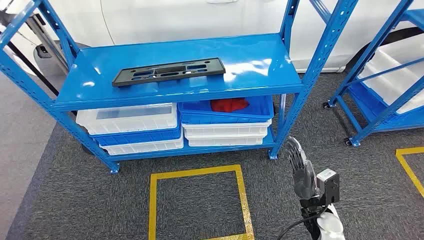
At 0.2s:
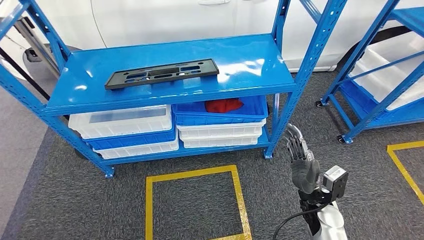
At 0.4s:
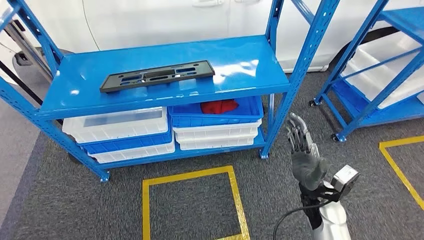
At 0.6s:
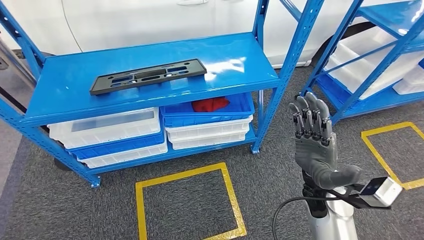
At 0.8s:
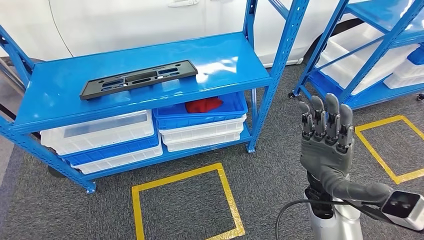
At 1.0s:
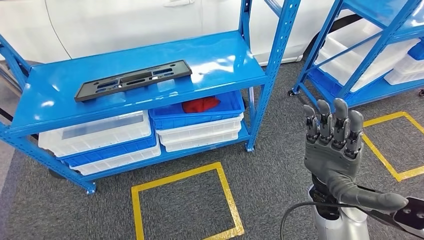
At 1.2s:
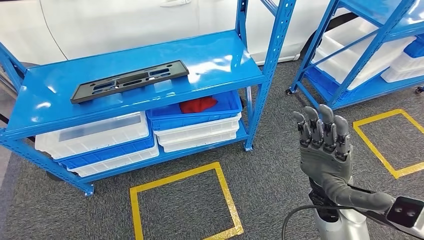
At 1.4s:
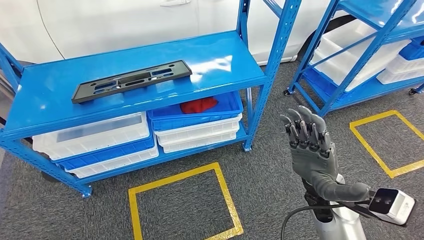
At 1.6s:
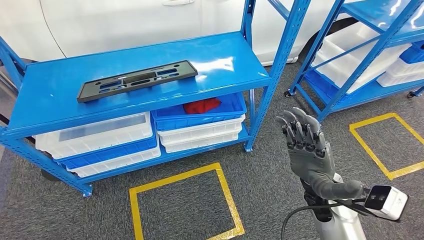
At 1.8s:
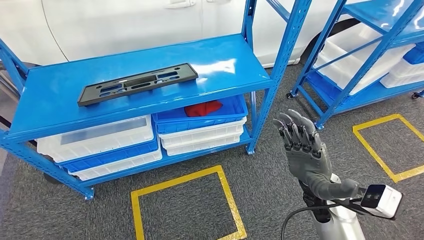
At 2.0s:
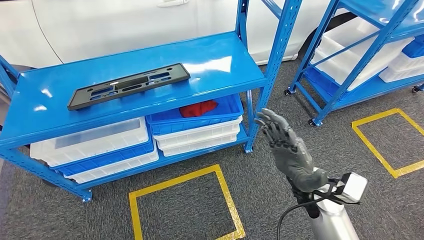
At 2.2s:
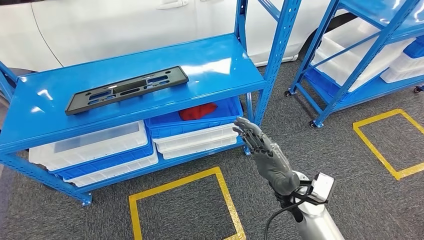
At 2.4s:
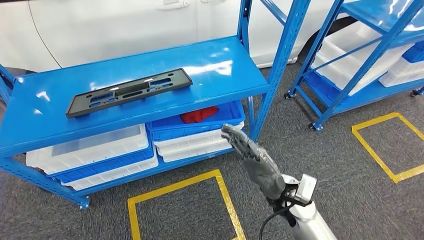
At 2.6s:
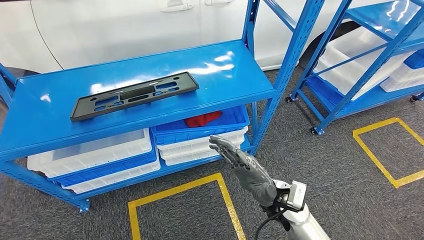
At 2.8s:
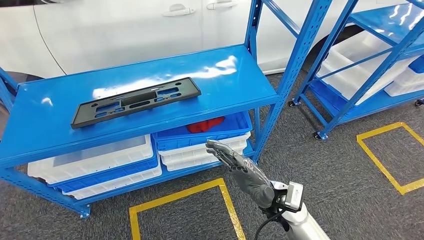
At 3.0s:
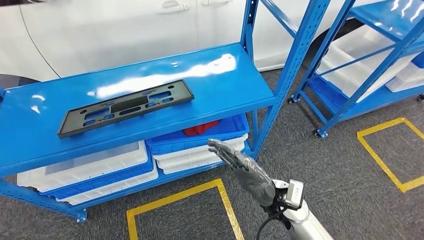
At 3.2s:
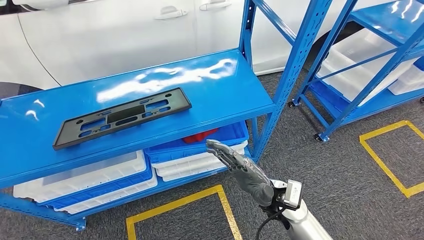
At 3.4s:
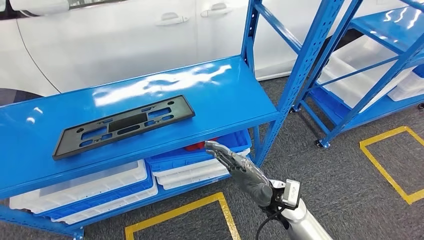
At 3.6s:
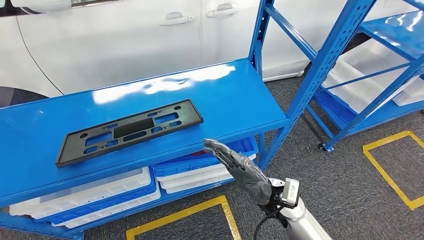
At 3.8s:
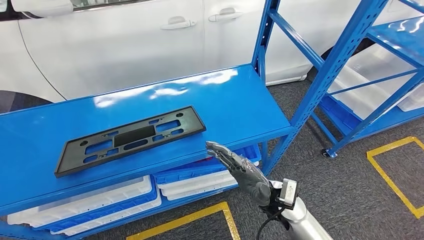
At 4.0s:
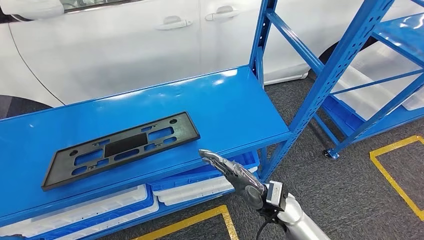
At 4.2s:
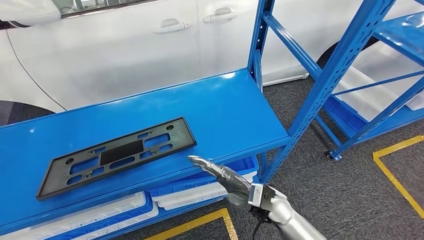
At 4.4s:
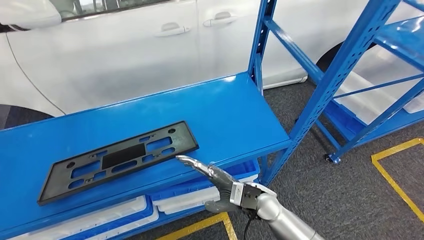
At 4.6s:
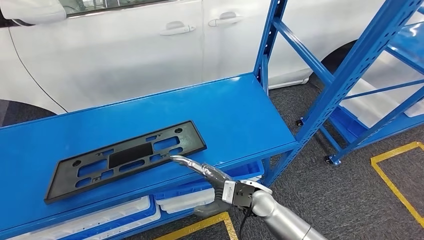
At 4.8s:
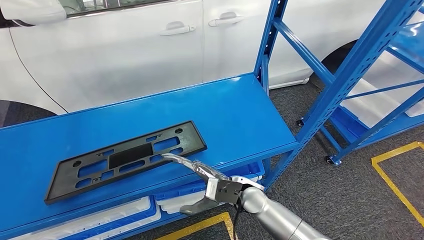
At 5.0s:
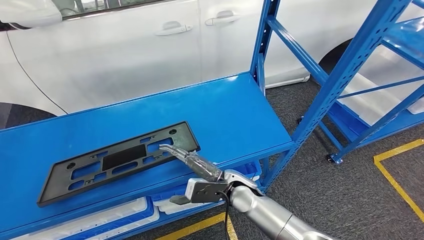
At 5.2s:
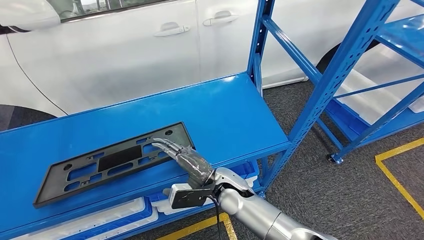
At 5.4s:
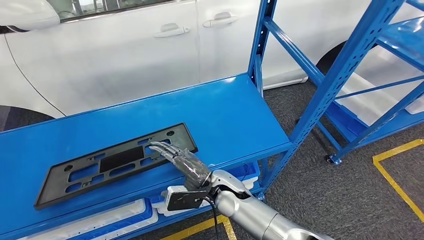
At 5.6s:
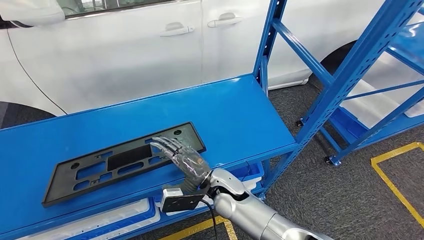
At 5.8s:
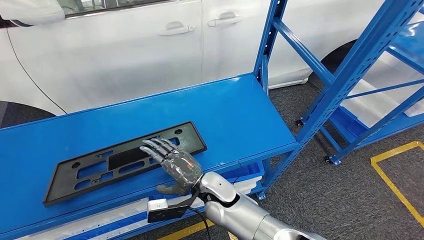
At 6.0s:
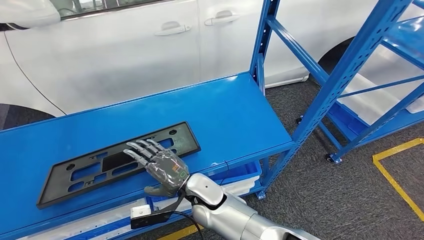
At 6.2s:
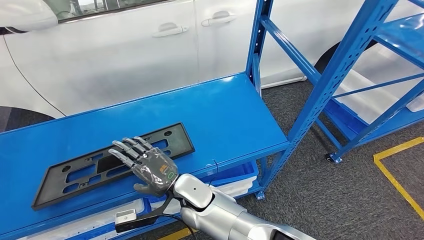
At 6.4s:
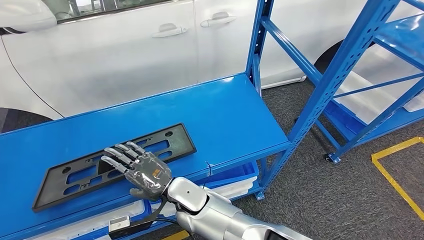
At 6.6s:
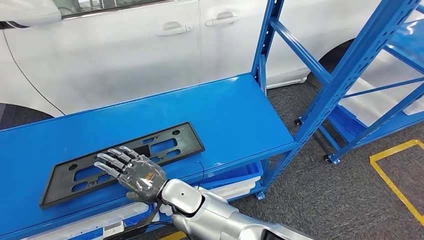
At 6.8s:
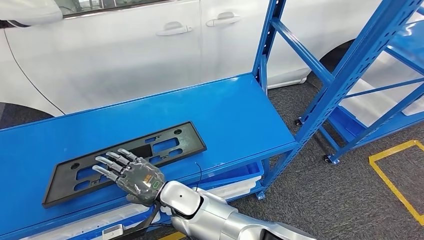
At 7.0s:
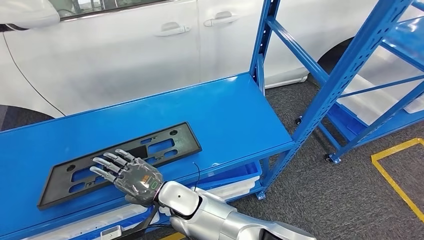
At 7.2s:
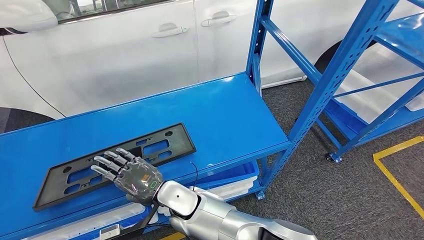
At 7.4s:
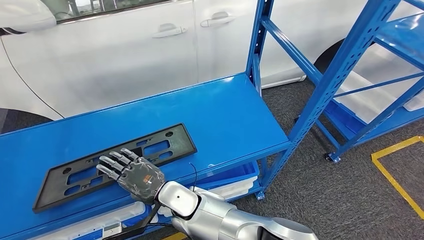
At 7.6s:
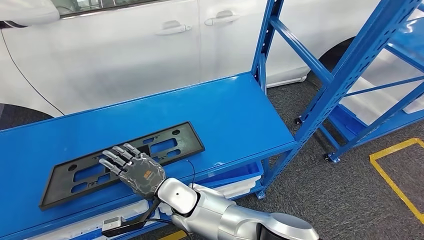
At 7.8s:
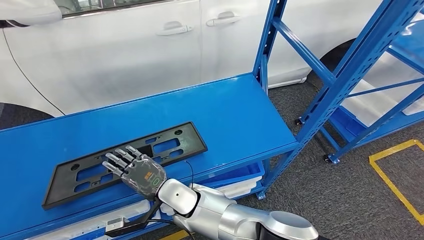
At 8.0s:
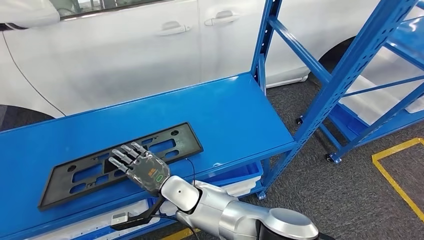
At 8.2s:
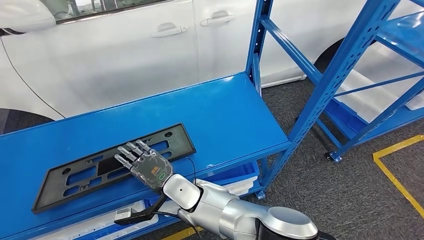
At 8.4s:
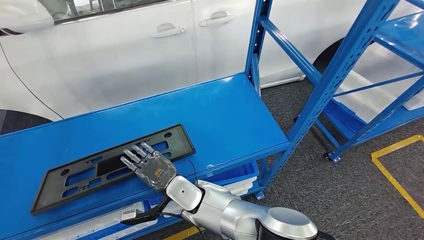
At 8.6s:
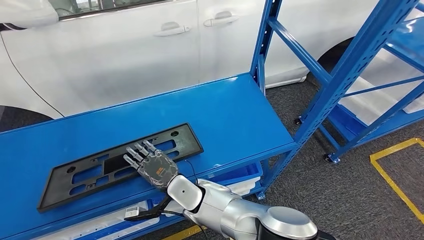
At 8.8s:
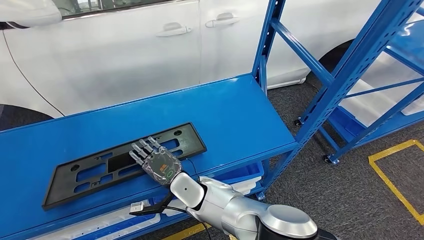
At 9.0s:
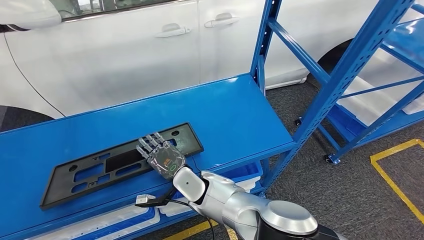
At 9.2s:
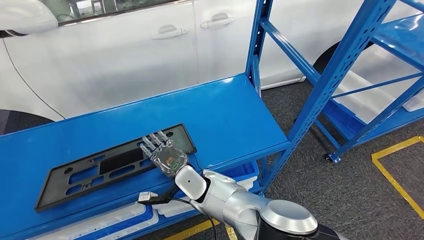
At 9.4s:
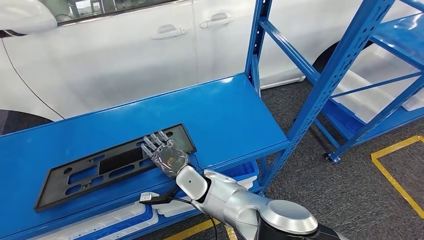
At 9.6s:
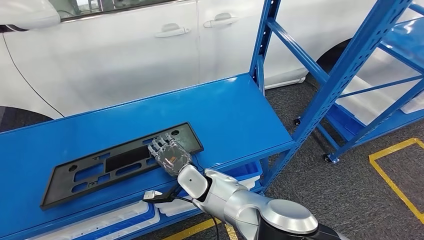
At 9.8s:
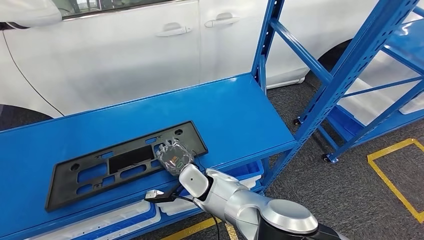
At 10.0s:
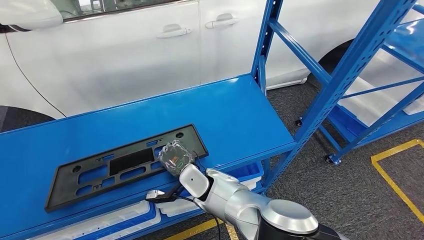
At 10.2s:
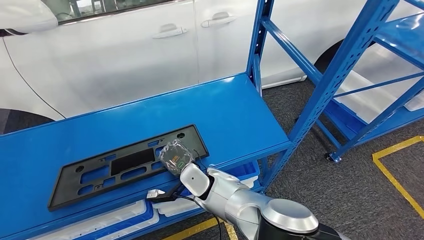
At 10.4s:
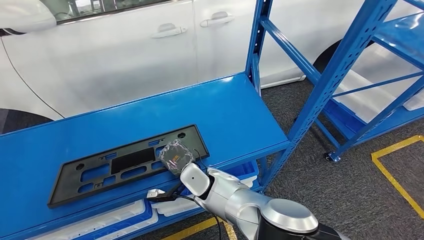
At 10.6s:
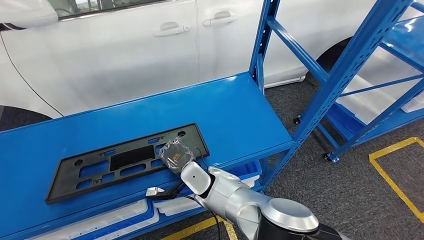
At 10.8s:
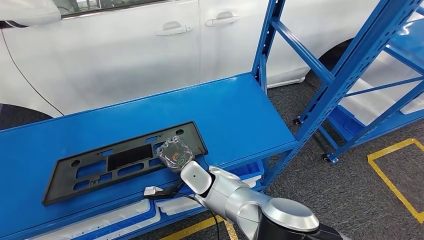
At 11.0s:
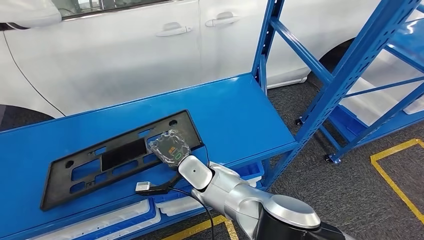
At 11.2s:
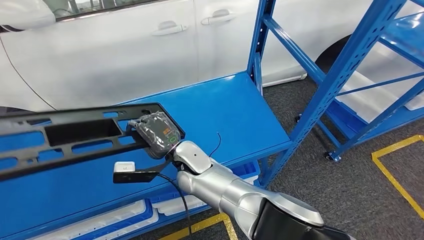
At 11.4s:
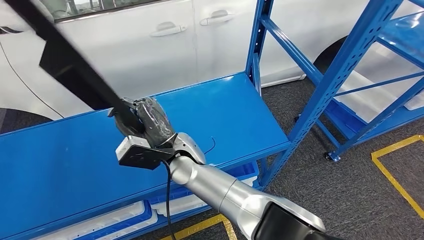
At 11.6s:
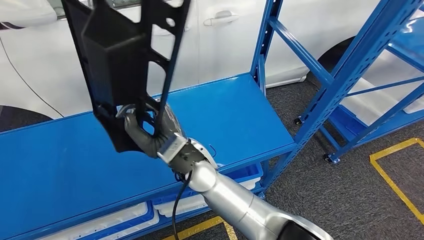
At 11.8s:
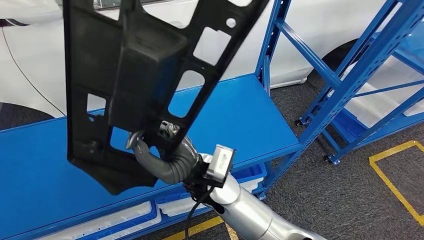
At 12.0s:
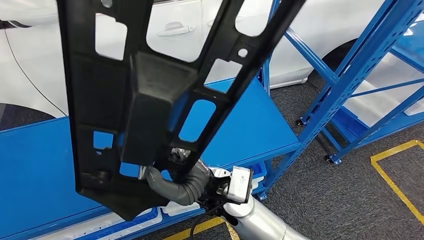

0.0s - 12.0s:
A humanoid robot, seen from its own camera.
4.4s - 6.0s: The right hand shifts about 15 cm to the left.
6.0s - 7.6s: The right hand travels to the left by approximately 5 cm.
7.6s - 9.0s: The right hand changes place by some 5 cm.
9.0s - 10.4s: There are only small adjustments of the hands.

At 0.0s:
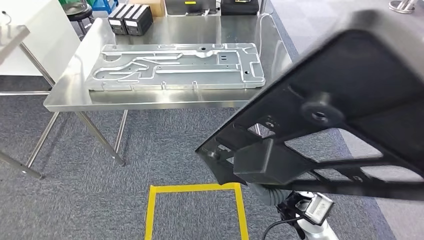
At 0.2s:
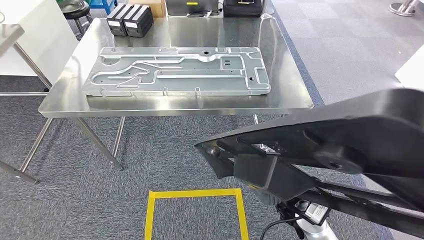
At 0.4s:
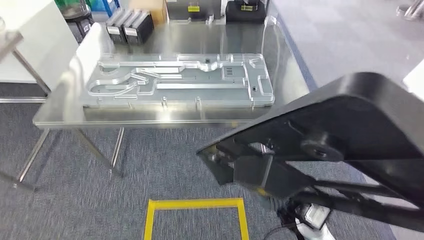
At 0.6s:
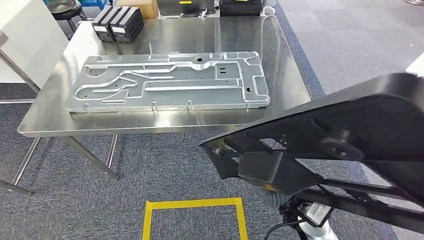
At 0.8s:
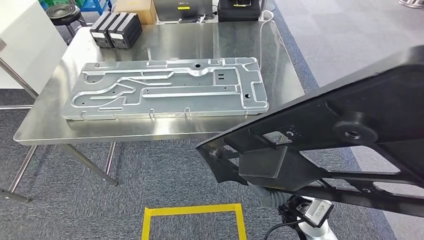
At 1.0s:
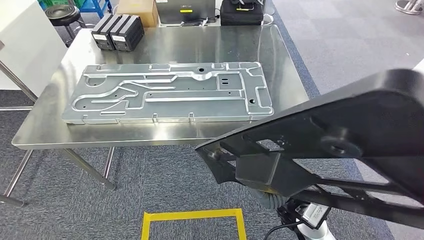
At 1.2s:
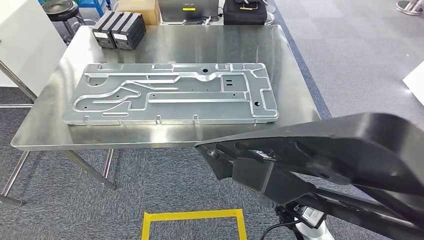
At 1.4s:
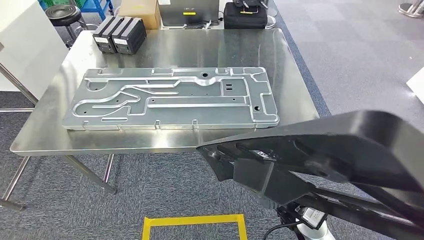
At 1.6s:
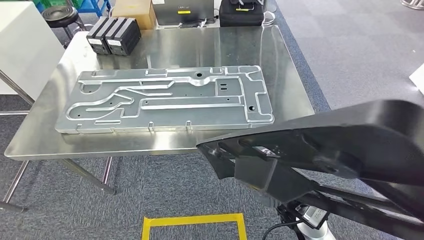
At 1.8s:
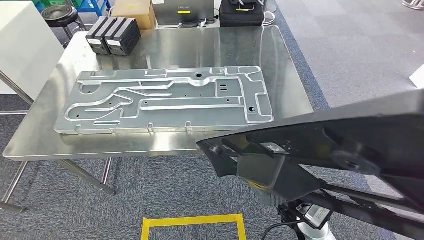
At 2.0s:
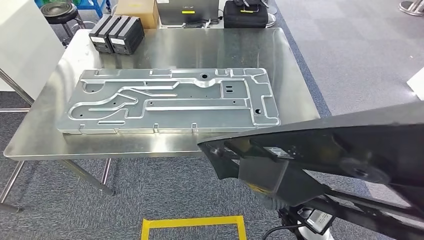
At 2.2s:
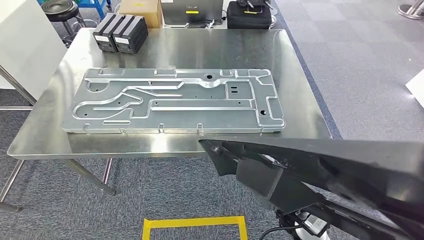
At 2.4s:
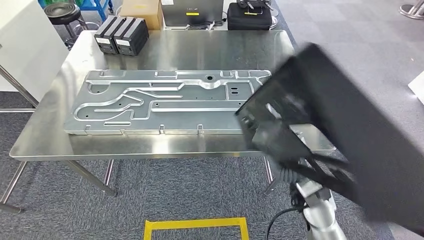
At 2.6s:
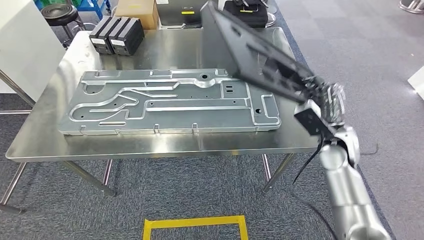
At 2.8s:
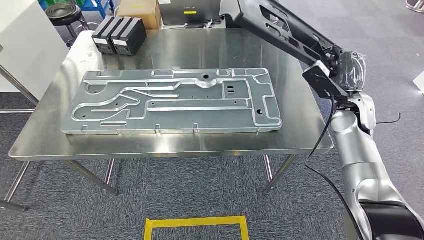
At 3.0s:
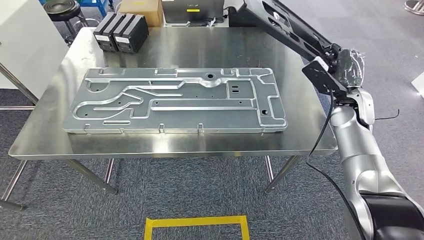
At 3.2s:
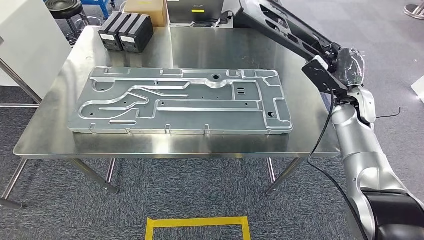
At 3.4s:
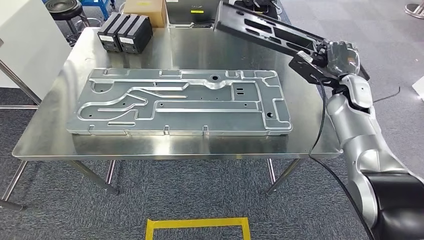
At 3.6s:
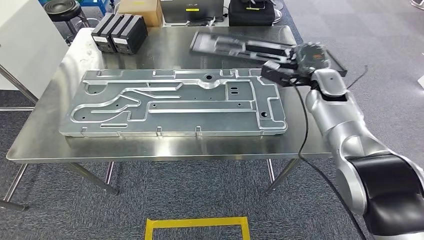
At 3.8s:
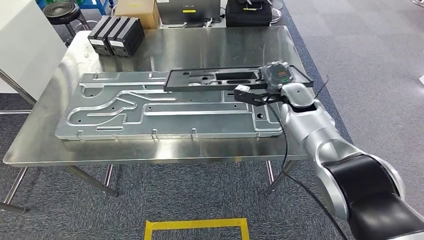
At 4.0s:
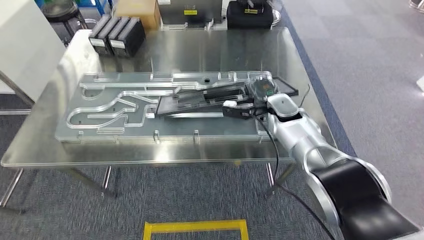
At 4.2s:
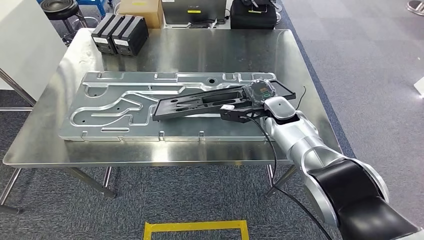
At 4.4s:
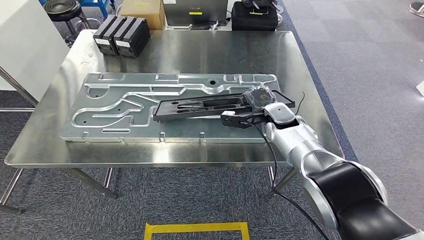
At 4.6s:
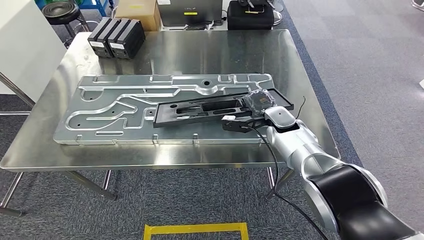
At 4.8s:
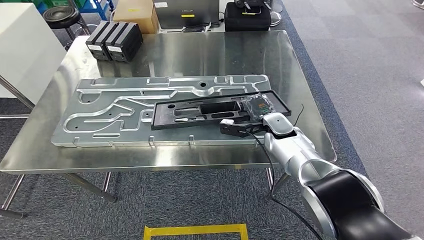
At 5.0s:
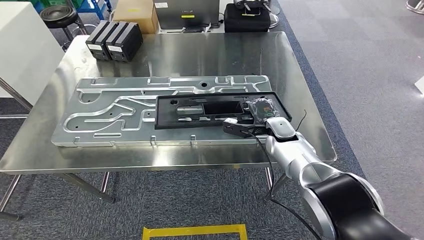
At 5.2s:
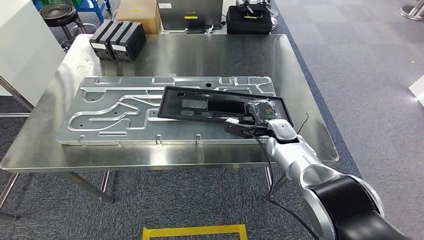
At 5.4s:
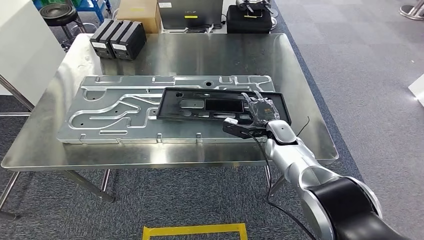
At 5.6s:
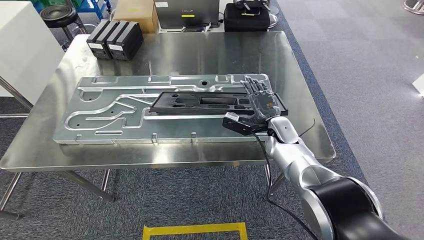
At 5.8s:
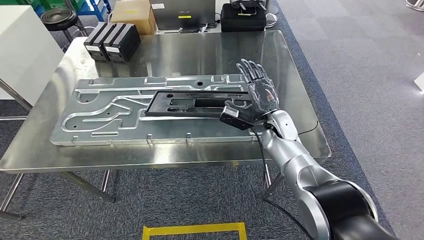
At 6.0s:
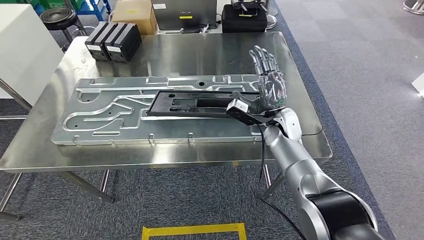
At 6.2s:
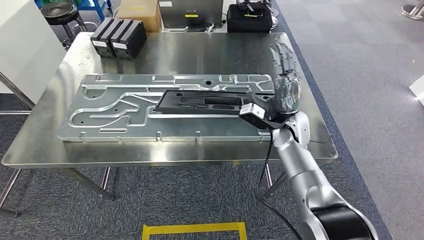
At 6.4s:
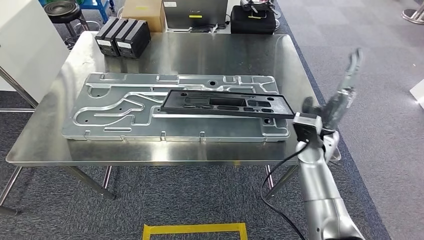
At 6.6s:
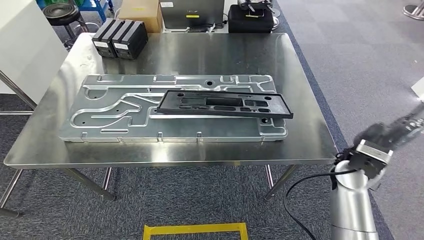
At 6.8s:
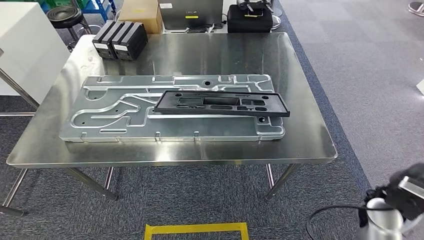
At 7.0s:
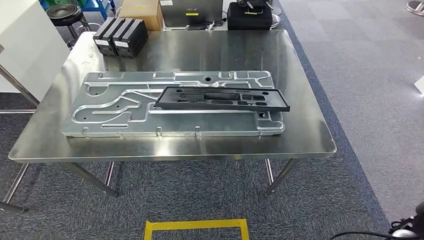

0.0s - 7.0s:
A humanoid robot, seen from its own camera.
Step, 0.0s - 3.4s: Move the large material to the workbench.
Step, 3.6s - 5.8s: Insert the large material into the corresponding slot on the workbench.
